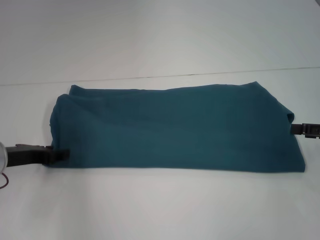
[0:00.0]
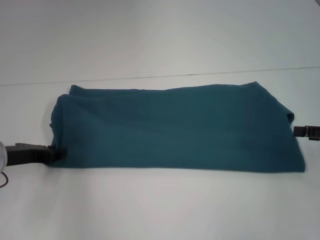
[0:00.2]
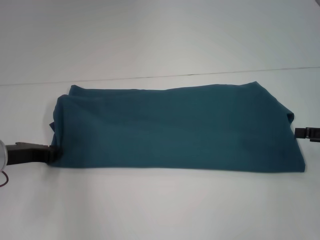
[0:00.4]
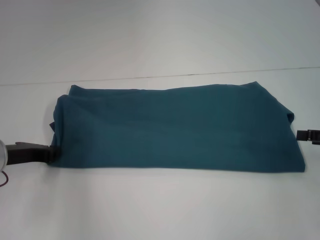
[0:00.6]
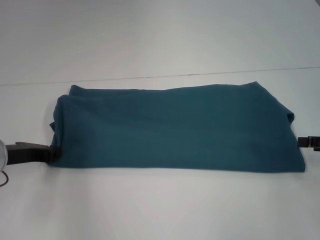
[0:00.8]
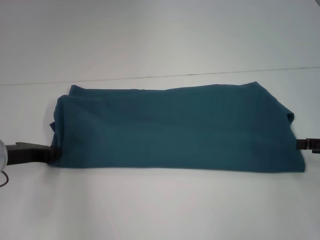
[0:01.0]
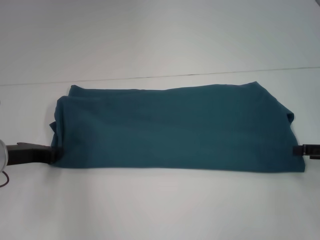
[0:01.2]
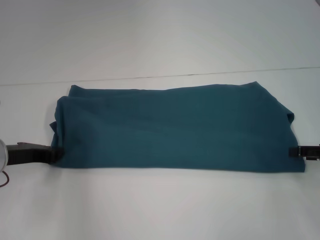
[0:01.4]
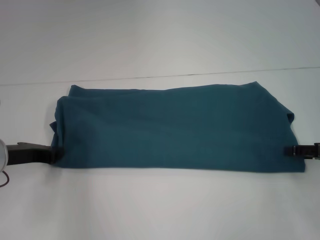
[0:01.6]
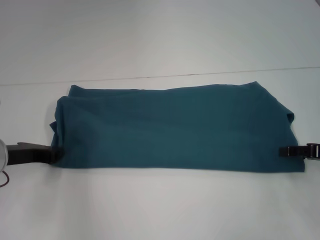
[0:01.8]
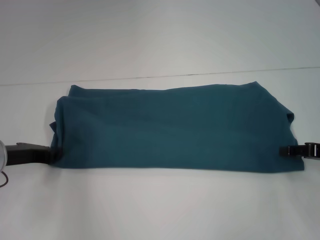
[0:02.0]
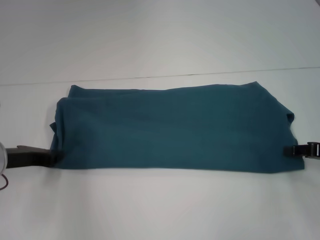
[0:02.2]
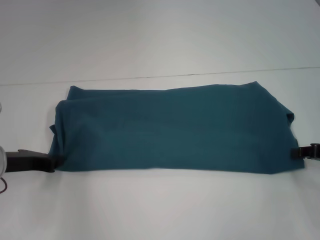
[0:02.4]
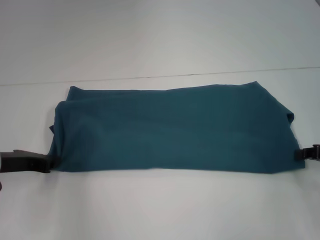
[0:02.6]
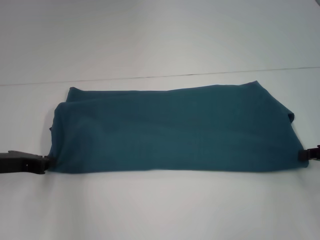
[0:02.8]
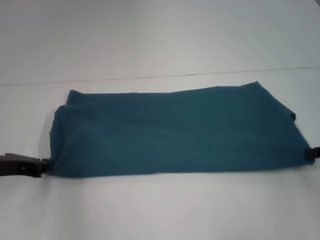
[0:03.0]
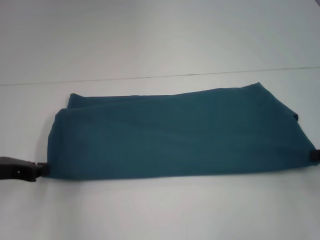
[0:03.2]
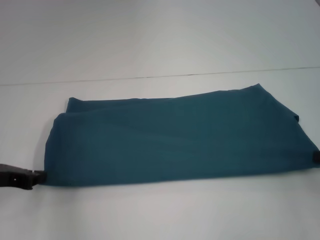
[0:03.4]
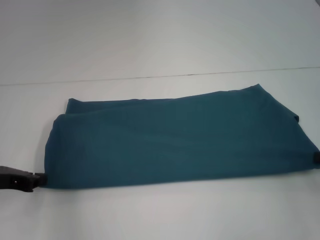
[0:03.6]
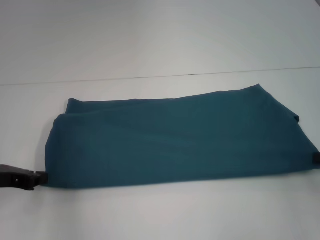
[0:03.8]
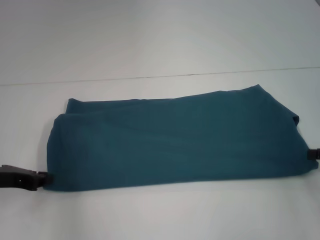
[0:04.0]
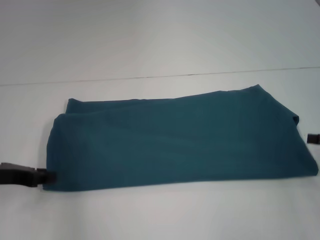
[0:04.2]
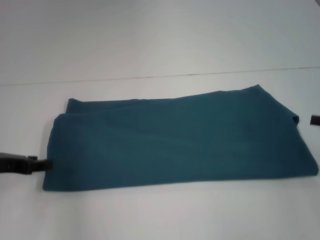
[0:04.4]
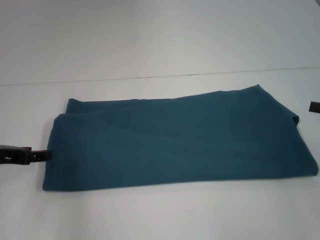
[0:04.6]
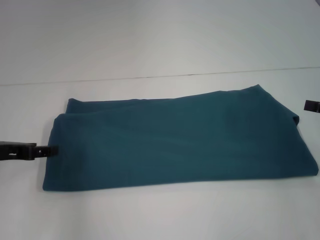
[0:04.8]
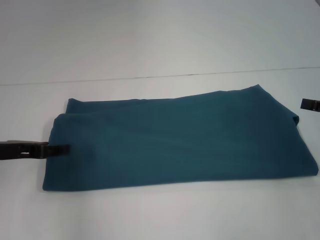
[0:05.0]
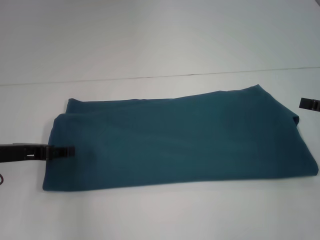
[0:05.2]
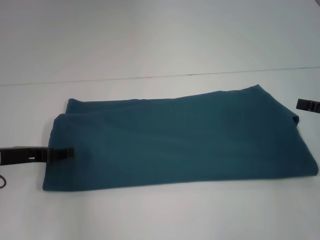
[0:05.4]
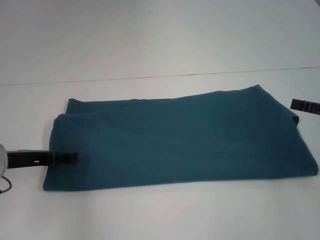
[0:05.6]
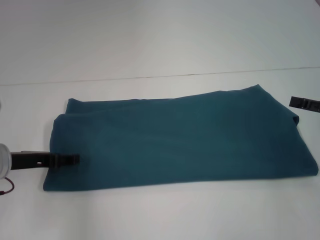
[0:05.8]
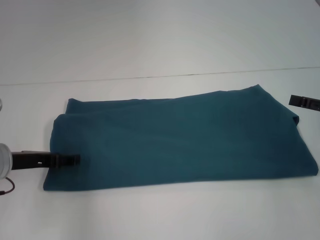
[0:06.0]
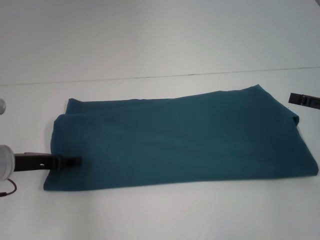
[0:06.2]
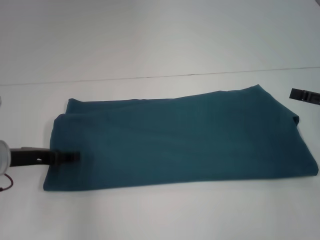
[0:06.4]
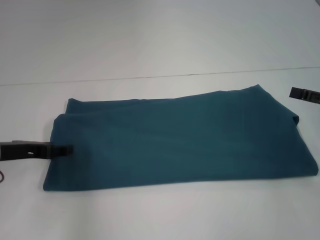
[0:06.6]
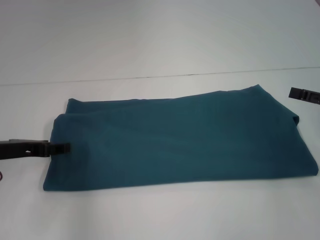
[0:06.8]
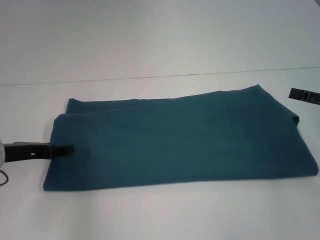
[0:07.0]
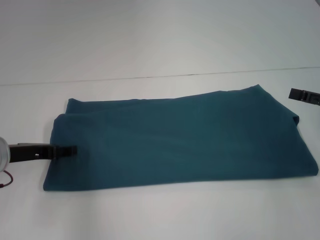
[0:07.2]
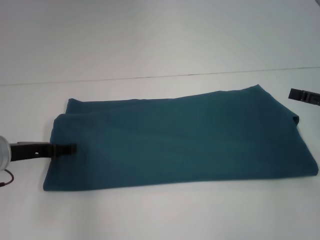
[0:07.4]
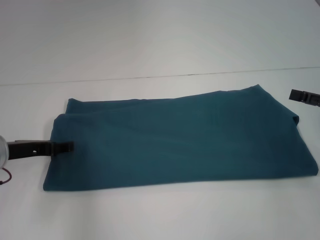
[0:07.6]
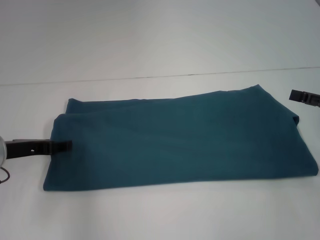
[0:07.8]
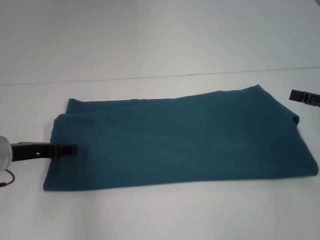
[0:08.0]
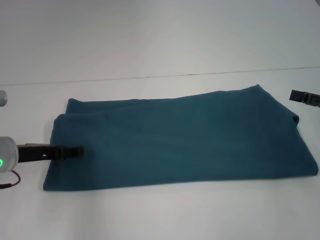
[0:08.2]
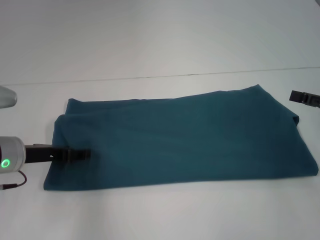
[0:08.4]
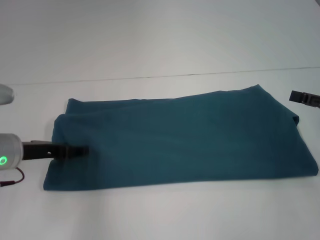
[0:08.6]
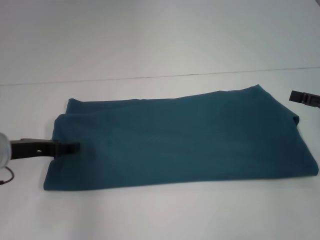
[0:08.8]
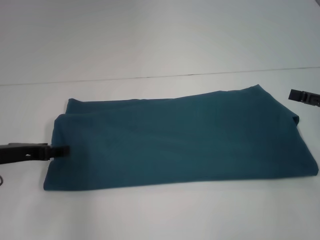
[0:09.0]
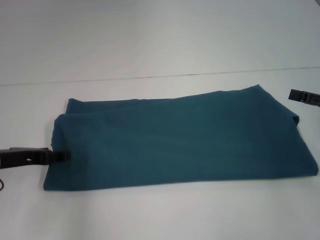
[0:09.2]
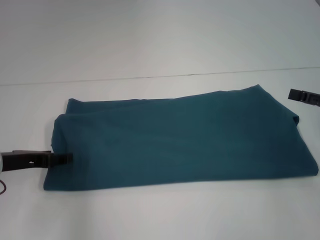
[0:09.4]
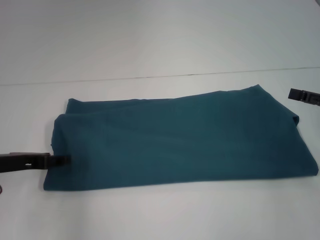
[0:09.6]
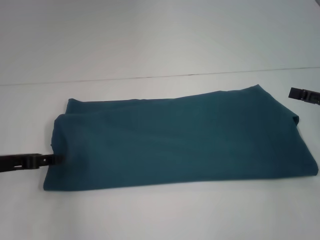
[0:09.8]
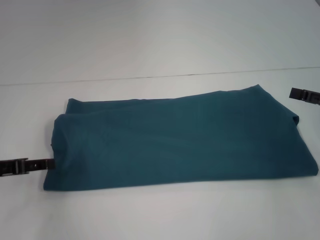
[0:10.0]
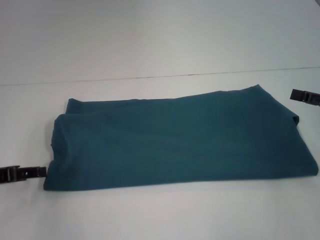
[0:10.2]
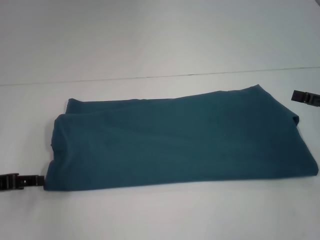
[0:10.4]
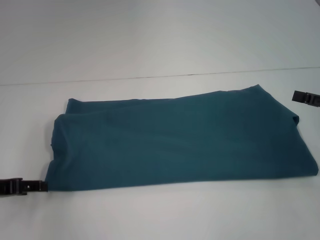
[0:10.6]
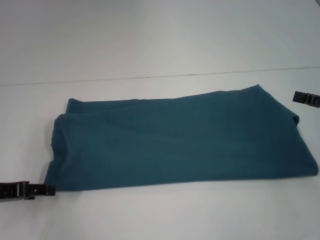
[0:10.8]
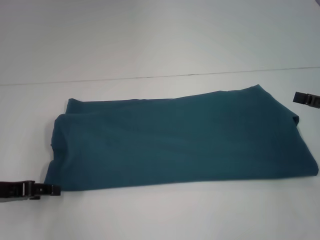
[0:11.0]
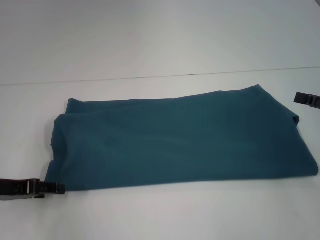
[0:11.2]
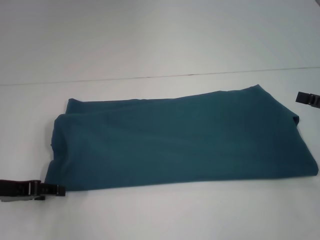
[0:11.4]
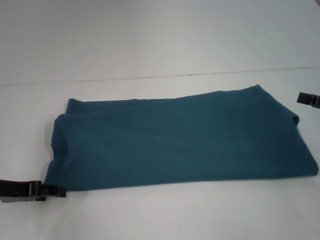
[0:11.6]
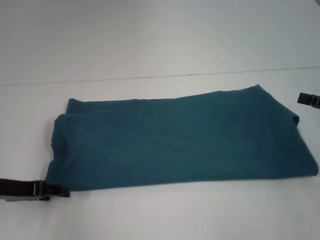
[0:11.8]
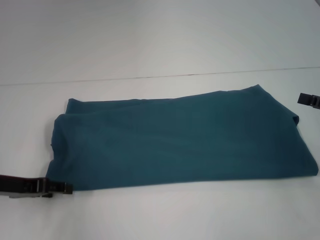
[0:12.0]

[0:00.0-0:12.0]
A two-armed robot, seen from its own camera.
0:00.0 to 0:01.6: The left gripper closes up.
0:01.6 to 0:03.0: The right gripper closes its fingers.
0:03.0 to 0:04.4: The grippers stay close to where they were, moving slightly.
0:04.4 to 0:06.0: The left gripper opens.
0:06.0 to 0:09.0: The grippers make only small movements.
0:09.0 to 0:10.4: The left gripper moves approximately 5 cm.
0:10.4 to 0:12.0: There are only small adjustments of the grippers.

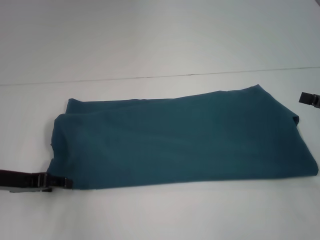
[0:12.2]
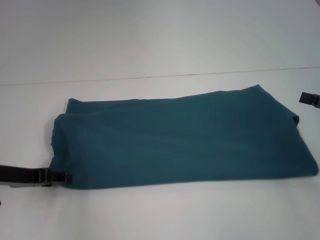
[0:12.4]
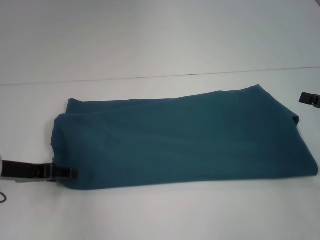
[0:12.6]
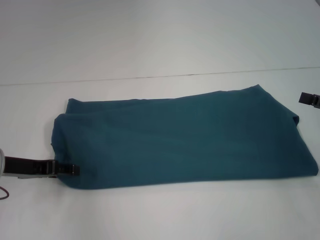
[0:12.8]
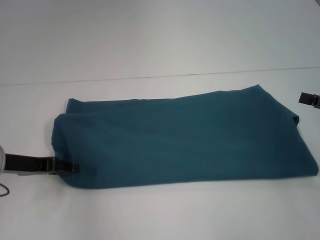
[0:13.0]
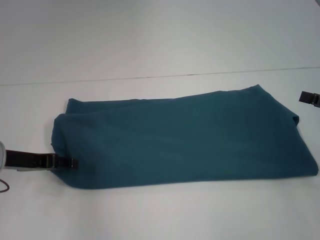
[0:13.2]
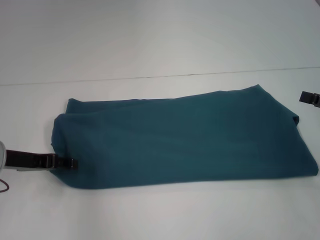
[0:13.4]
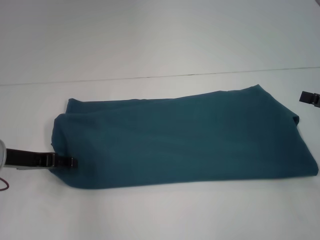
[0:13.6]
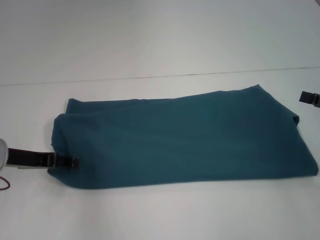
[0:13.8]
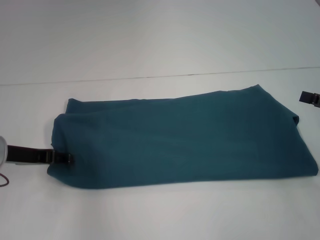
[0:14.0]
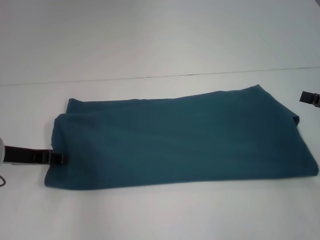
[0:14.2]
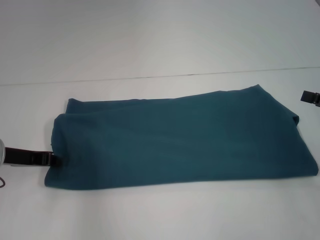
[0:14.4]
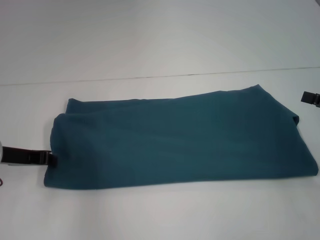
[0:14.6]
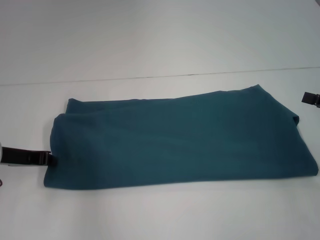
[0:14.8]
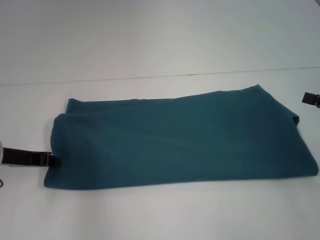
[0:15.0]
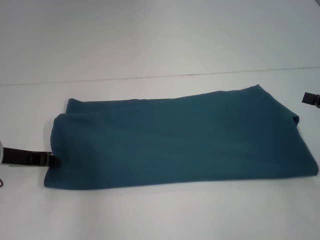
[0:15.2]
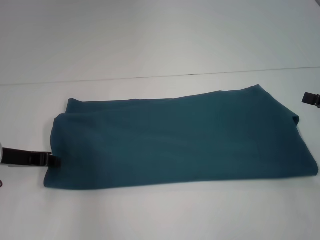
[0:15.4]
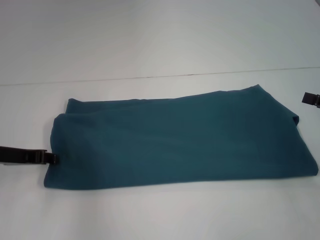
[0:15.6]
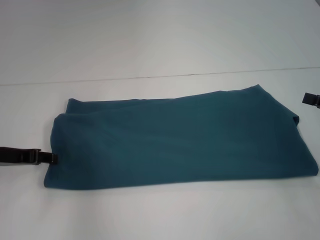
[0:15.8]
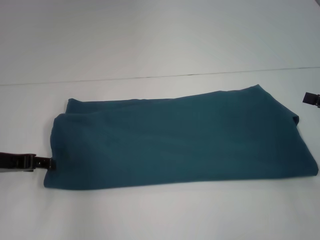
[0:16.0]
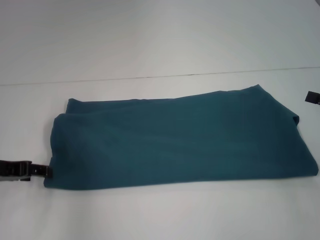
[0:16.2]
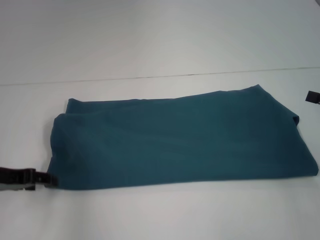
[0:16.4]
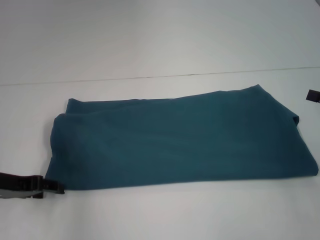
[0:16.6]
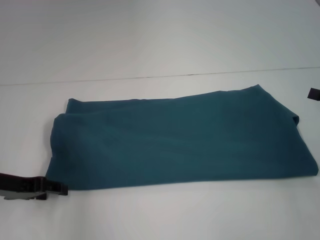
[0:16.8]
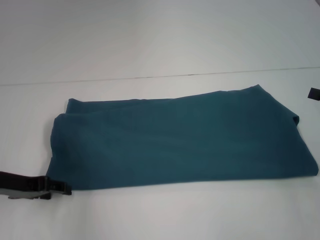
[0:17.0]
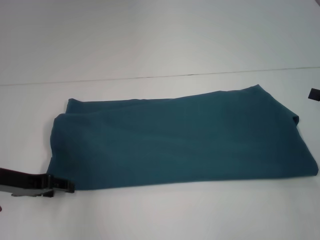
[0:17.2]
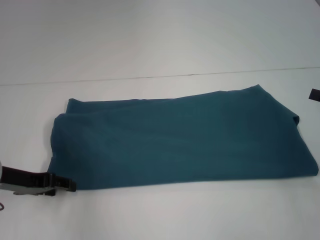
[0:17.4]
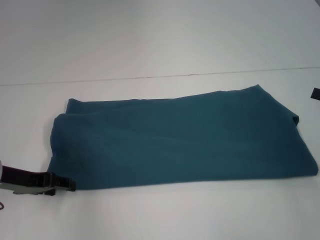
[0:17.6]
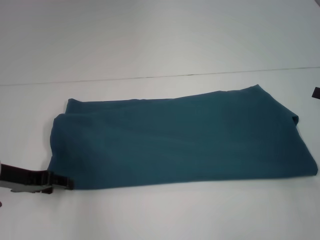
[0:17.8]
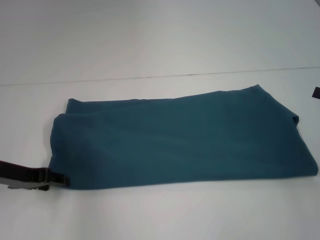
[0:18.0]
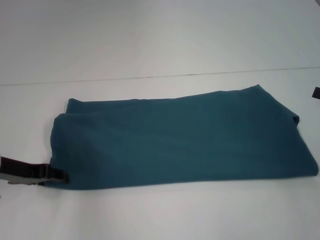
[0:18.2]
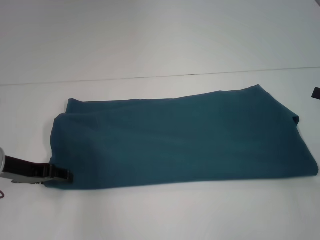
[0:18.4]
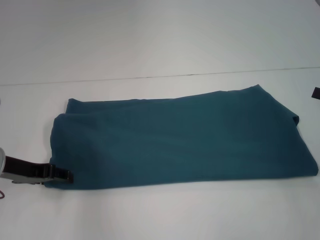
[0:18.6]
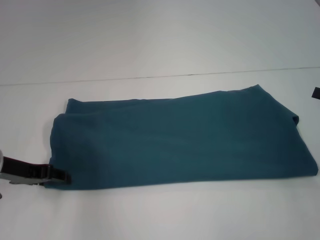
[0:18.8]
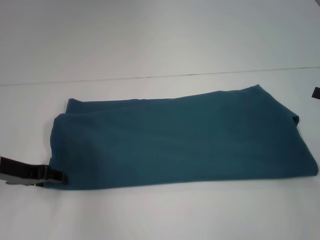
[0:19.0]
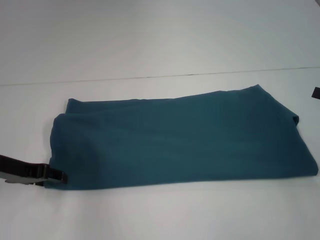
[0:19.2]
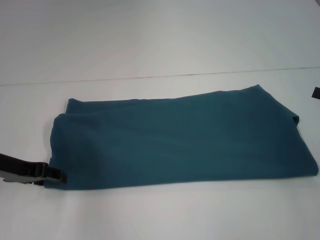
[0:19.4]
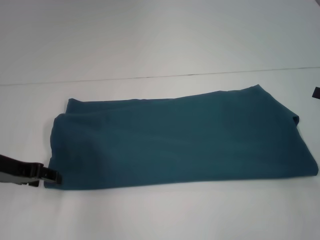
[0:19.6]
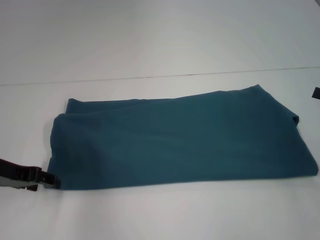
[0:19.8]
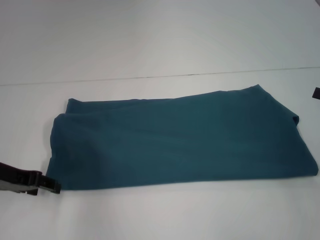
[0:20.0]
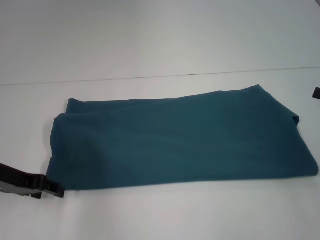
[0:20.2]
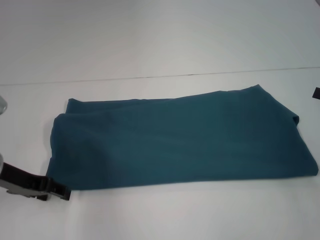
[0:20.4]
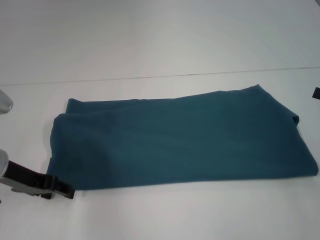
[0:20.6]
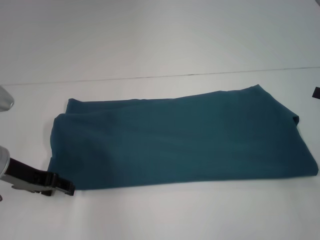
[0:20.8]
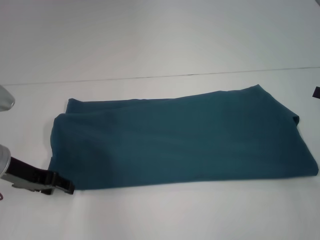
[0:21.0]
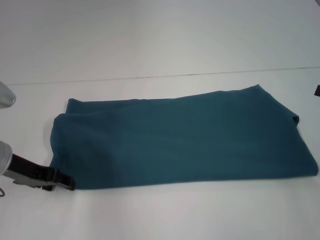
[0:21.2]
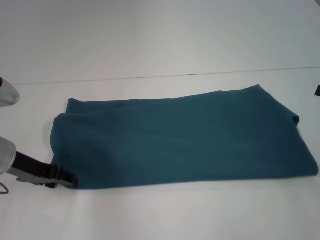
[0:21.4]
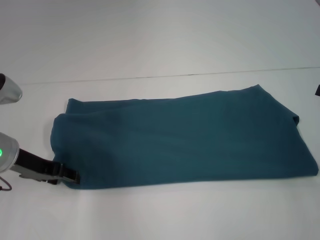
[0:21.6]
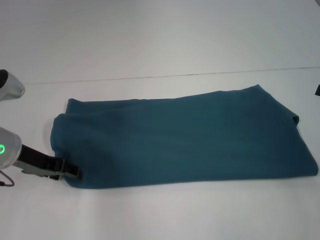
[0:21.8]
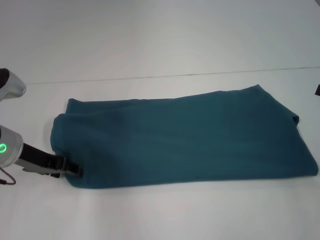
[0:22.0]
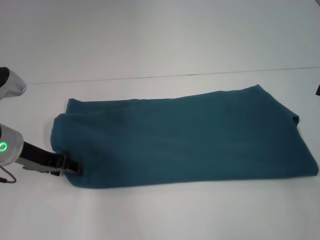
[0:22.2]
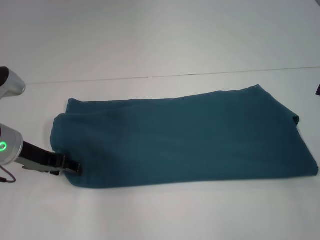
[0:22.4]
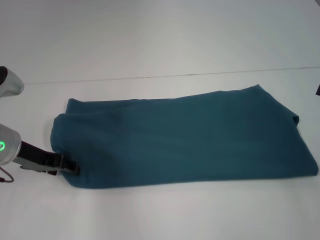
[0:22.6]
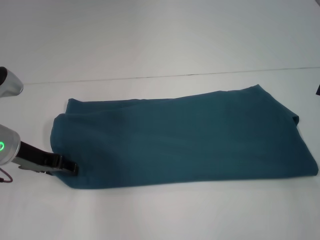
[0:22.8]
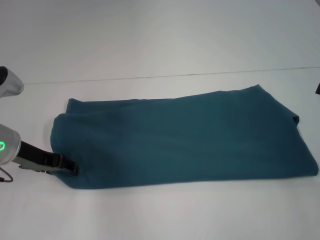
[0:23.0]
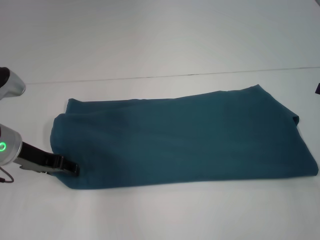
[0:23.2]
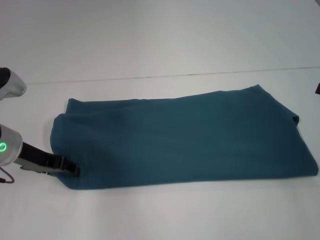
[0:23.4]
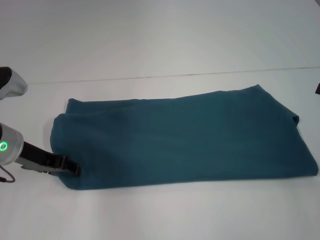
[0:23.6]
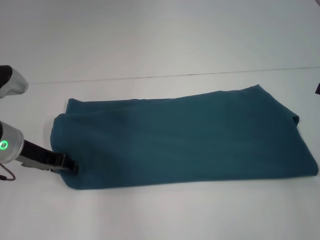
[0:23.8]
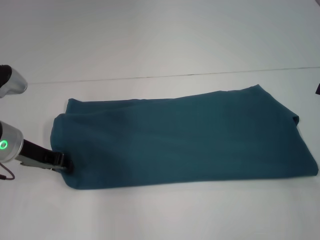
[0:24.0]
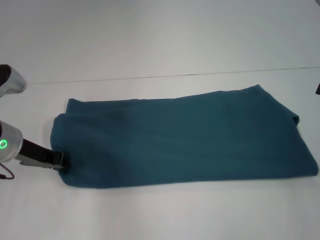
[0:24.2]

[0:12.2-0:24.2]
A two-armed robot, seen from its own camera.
0:12.2 to 0:13.8: There are only small adjustments of the grippers.
0:13.8 to 0:15.2: The left gripper closes its fingers.
0:15.2 to 0:16.6: The left gripper opens its fingers.
0:16.6 to 0:21.2: There are only small adjustments of the grippers.
0:21.2 to 0:22.6: The grippers make only small movements.
0:22.6 to 0:24.2: Both grippers stay put.
